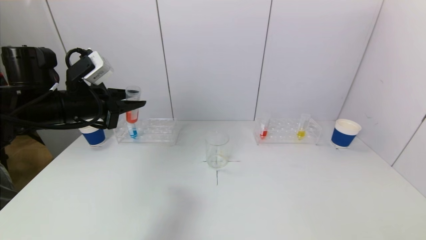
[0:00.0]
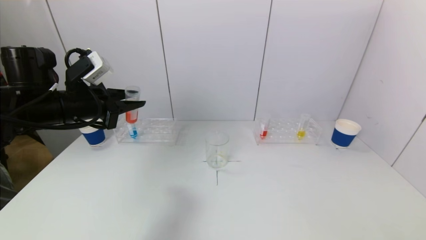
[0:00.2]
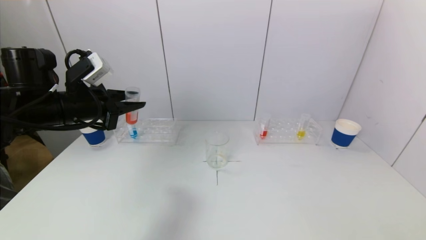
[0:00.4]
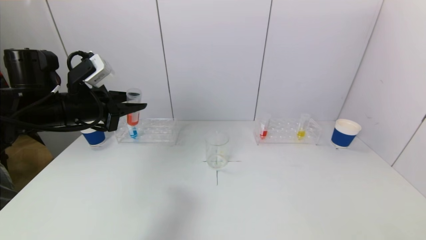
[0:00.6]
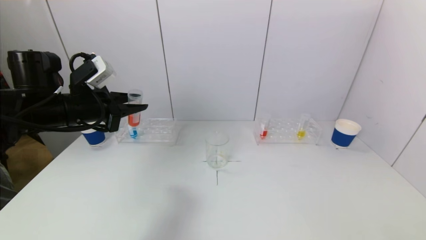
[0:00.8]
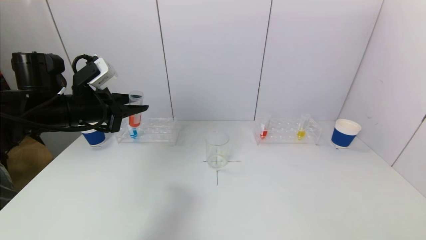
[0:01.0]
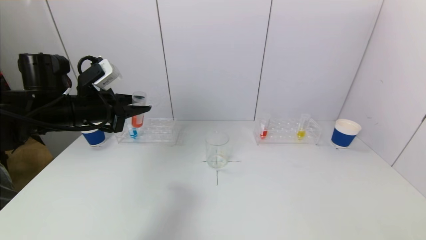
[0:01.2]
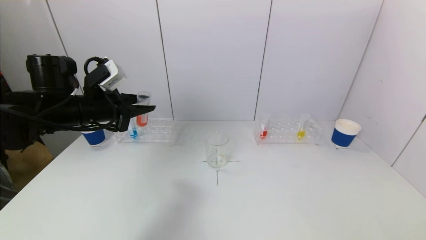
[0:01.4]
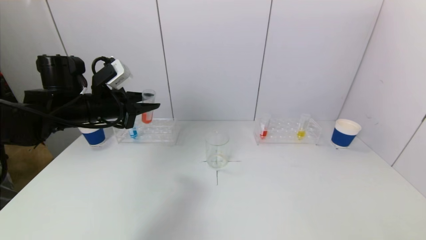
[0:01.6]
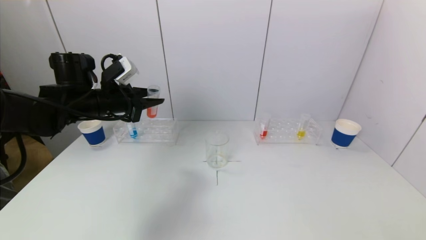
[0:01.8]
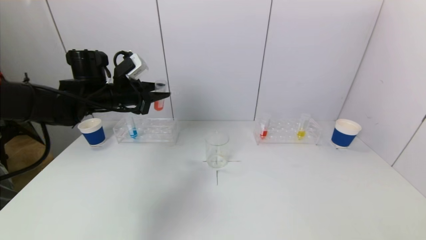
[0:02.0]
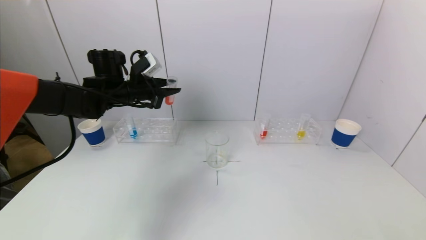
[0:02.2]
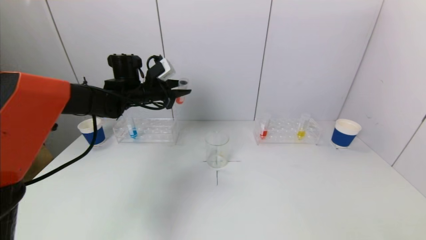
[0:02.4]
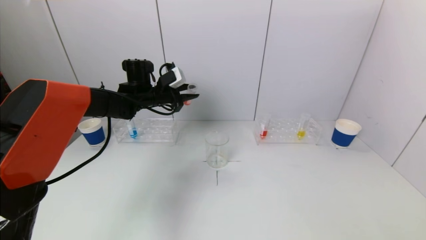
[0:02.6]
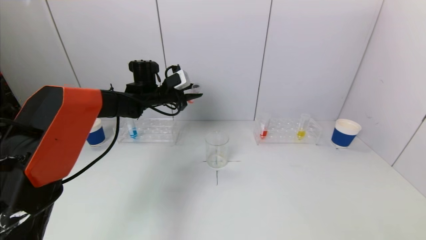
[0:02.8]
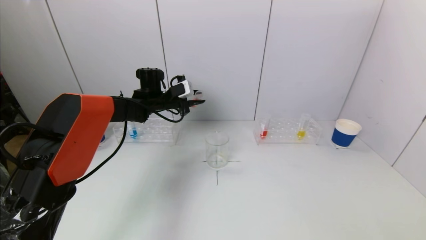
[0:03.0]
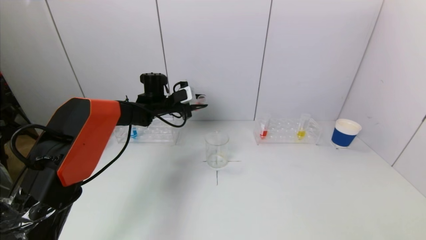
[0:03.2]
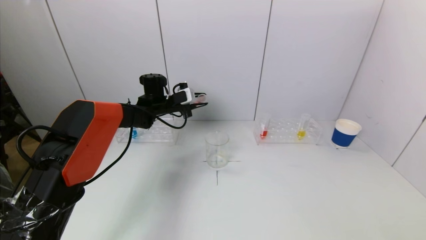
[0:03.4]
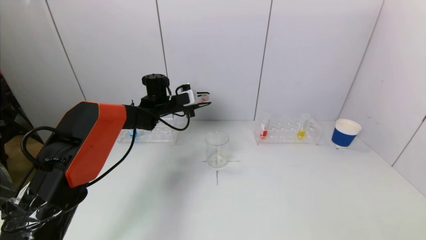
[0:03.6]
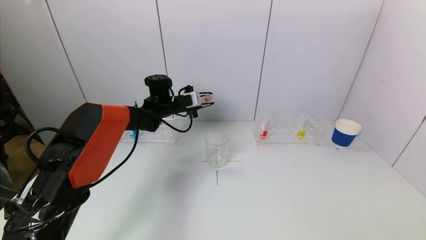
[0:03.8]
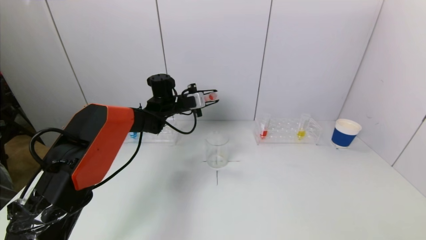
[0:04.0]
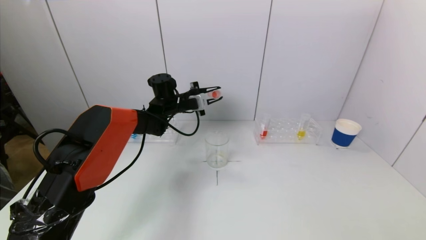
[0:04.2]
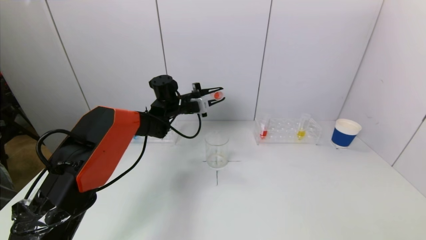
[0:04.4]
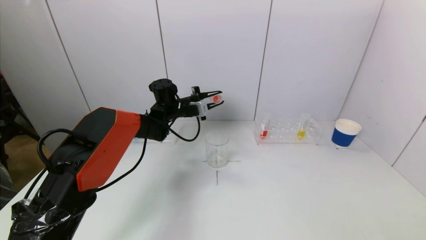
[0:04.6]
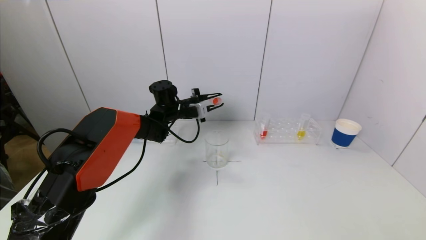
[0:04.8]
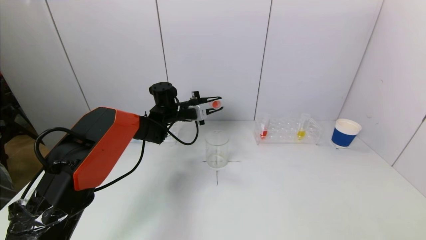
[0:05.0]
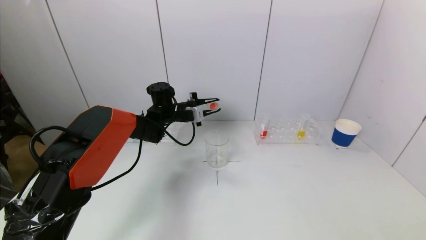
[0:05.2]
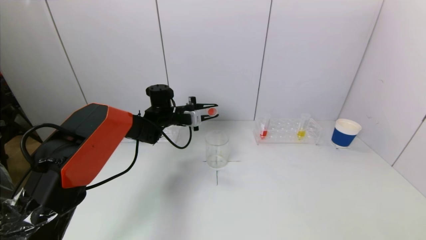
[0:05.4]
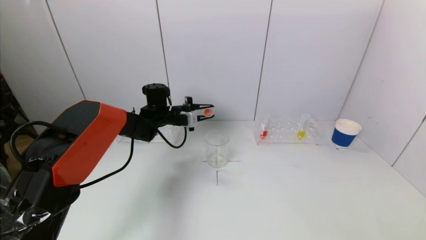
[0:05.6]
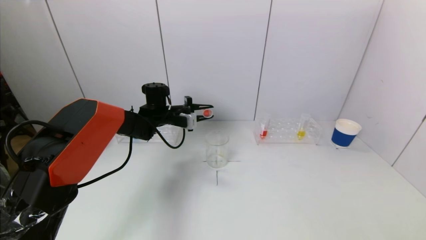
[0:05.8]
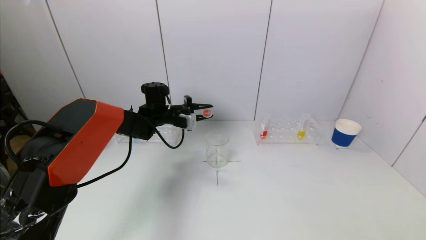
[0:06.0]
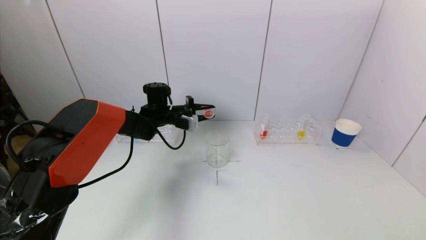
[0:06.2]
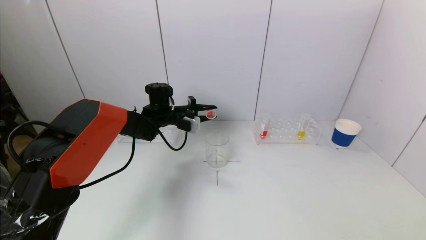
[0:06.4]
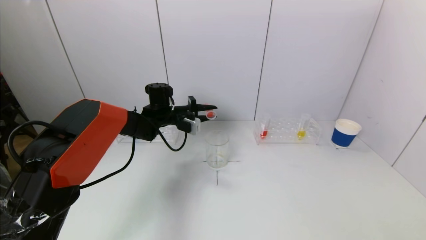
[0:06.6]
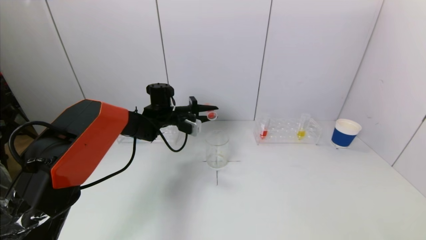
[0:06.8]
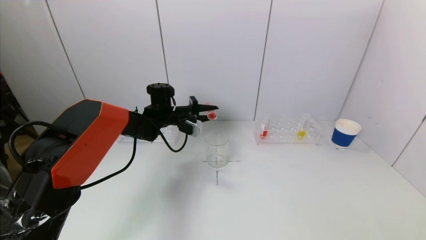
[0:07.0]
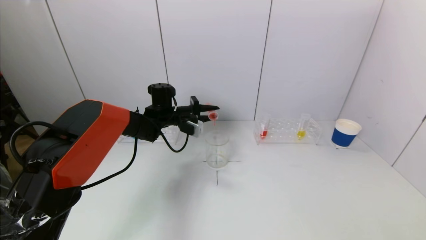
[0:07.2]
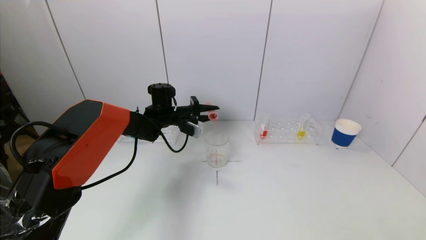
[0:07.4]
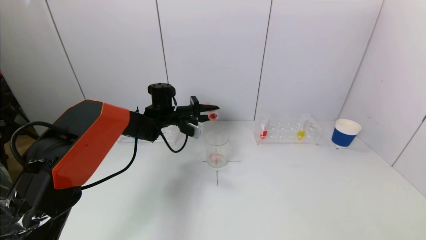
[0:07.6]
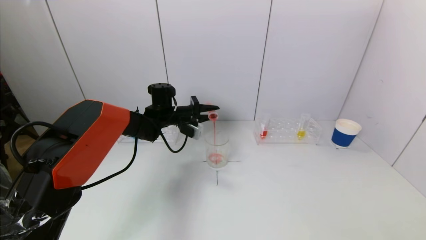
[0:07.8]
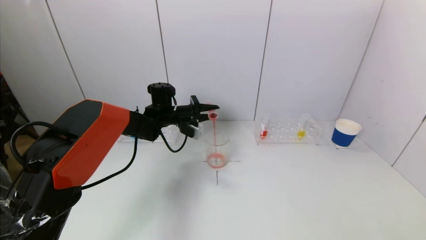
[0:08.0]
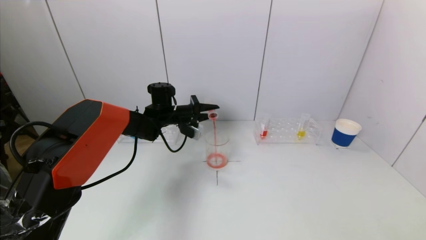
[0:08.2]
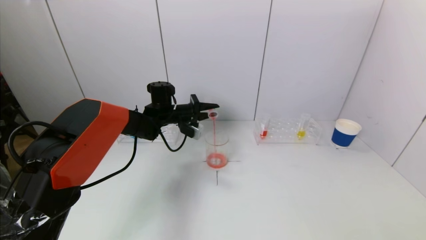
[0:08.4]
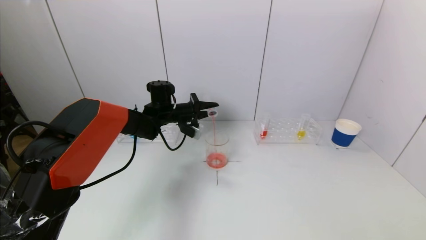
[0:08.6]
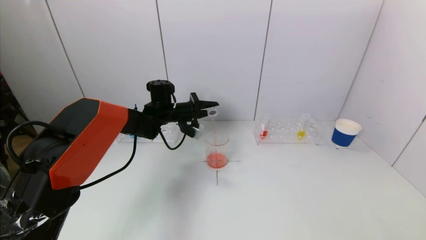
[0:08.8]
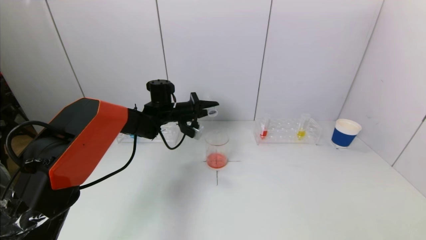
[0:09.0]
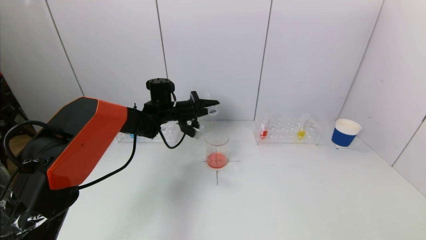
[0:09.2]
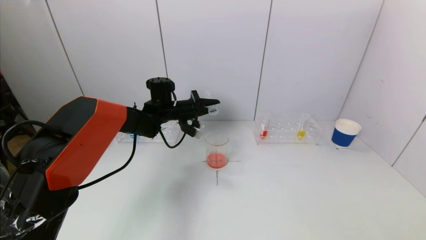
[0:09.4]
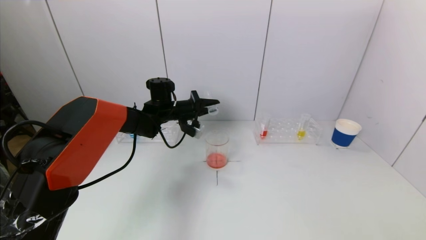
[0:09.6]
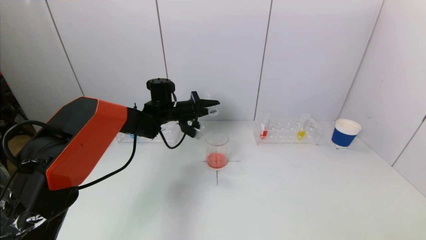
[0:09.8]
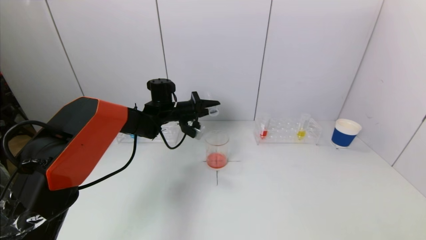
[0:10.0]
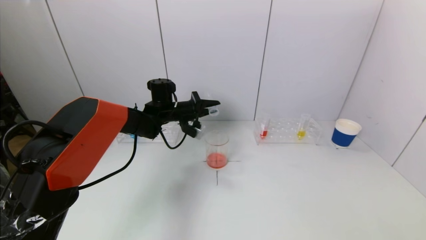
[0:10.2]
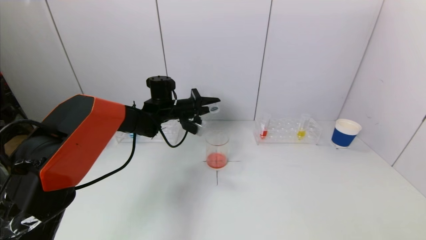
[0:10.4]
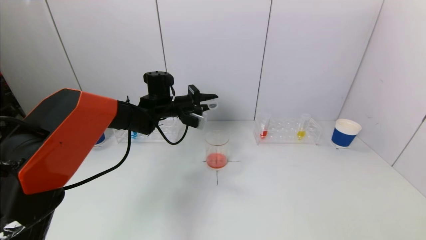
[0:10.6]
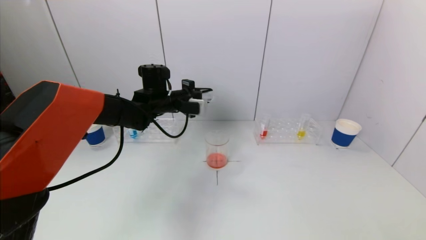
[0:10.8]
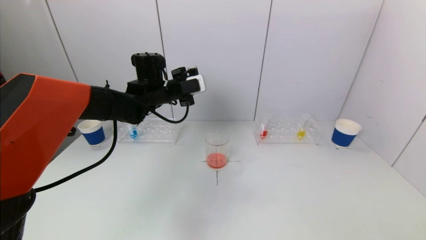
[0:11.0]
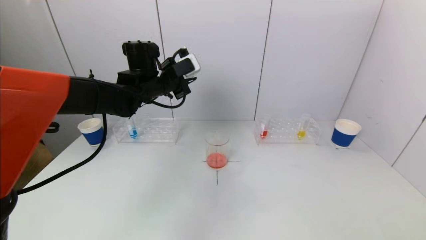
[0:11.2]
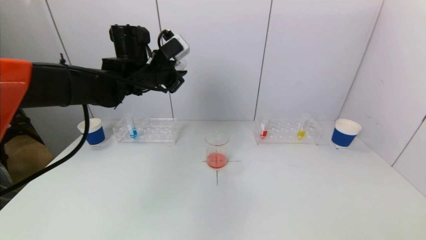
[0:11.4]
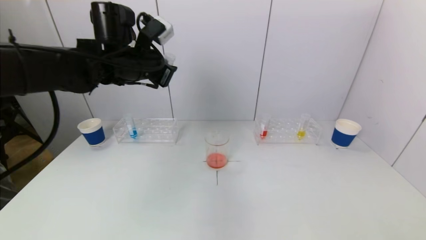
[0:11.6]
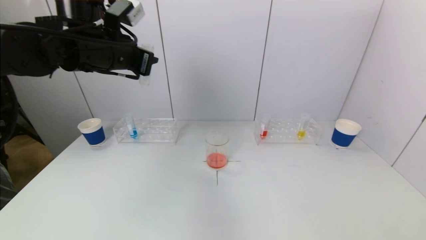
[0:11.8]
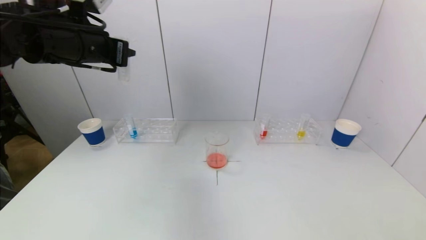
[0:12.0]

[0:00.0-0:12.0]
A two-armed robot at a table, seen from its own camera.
Task of the whole recording: pick up a test tube with pigment on left test tube rack and a test tube with pigment on right test tube rack by grippers and pour them into the beaker.
Step, 0:00.0 to 0:09.6: Pour the red reagent into the graduated cylinder with the left gripper.
0:00.0 to 0:01.6: The grippers stay close to where they were, moving slightly.
0:01.6 to 0:03.0: The left gripper heads forward and to the right, covering approximately 20 cm.
0:03.0 to 0:04.4: The left gripper moves to the right, approximately 5 cm.
0:04.4 to 0:06.0: The grippers stay close to where they were, moving slightly.
0:06.0 to 0:07.6: The grippers move only a little.
0:07.6 to 0:10.4: There are only small adjustments of the grippers.
0:10.4 to 0:12.0: The left gripper travels upward, backward and to the left by about 25 cm.

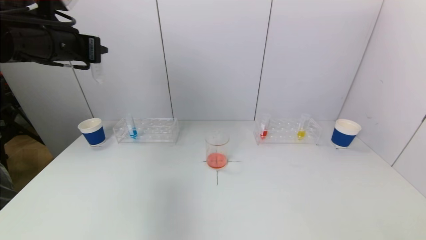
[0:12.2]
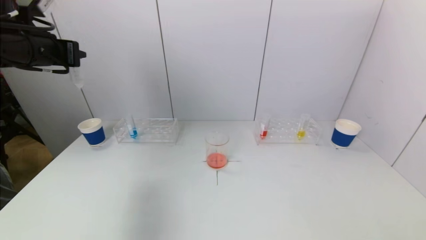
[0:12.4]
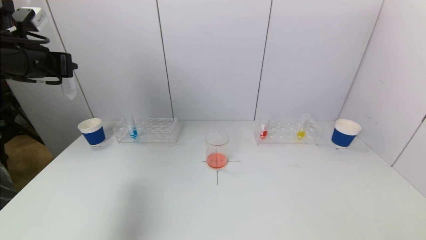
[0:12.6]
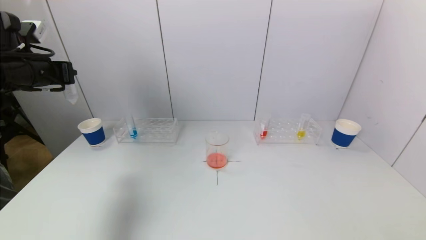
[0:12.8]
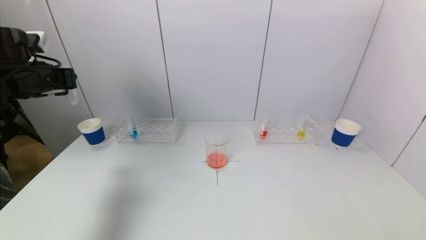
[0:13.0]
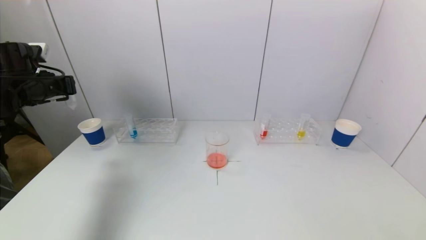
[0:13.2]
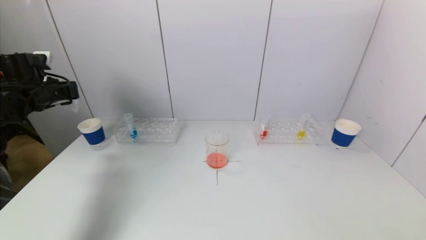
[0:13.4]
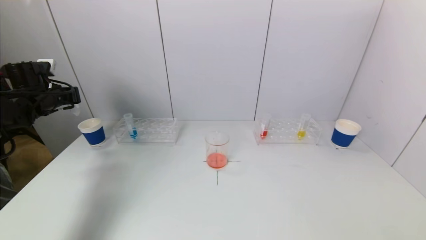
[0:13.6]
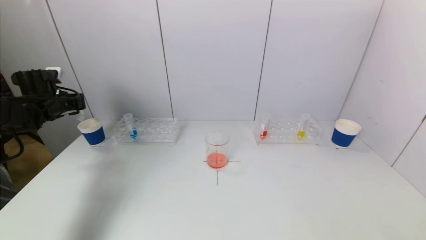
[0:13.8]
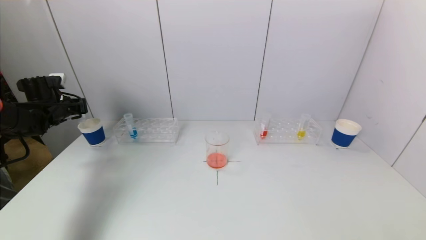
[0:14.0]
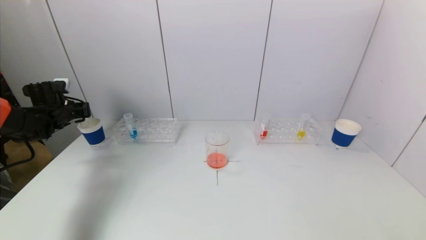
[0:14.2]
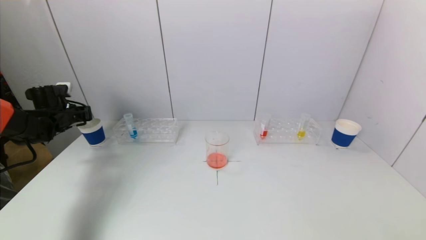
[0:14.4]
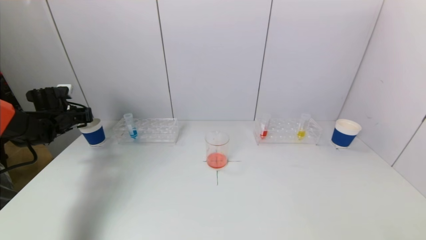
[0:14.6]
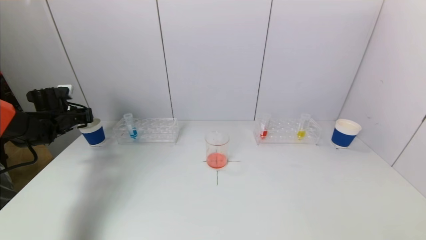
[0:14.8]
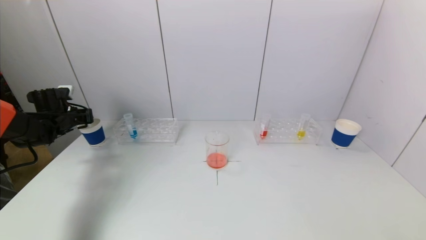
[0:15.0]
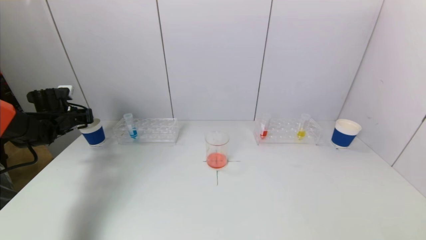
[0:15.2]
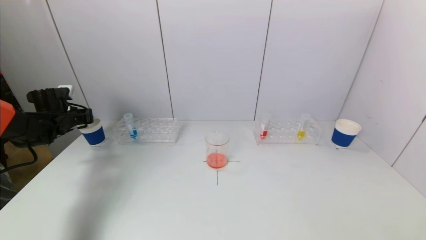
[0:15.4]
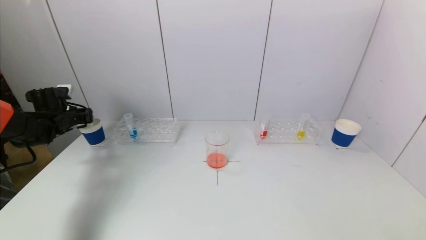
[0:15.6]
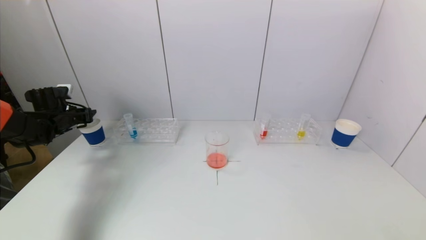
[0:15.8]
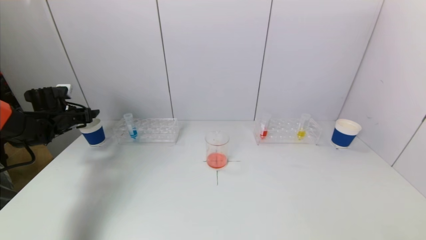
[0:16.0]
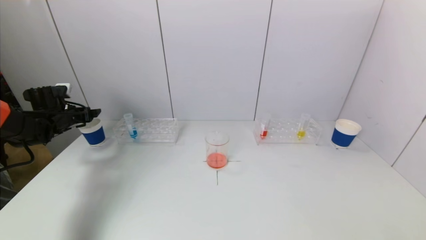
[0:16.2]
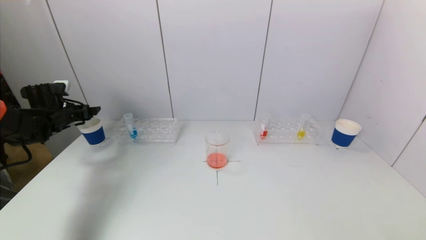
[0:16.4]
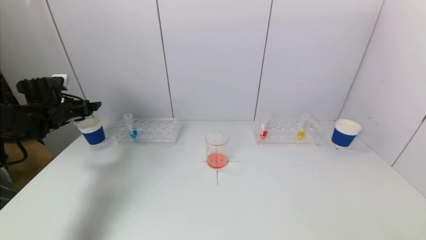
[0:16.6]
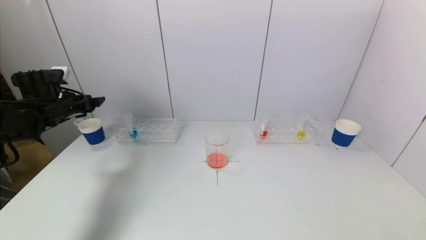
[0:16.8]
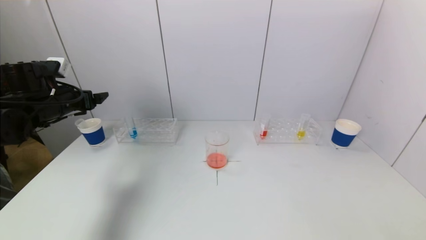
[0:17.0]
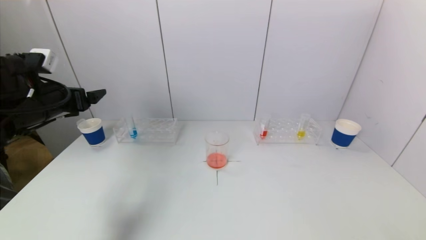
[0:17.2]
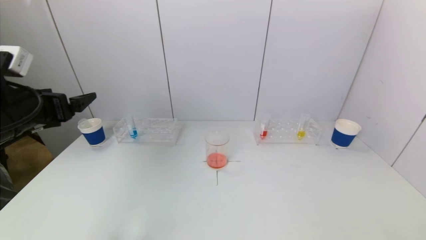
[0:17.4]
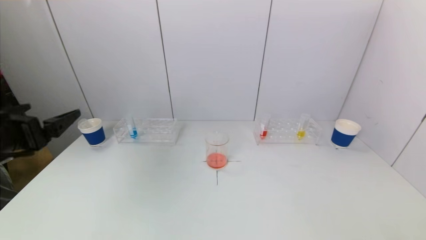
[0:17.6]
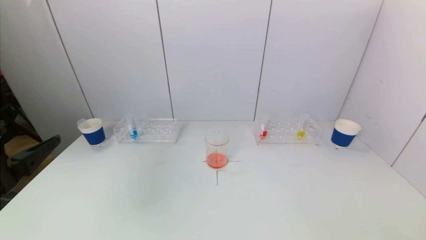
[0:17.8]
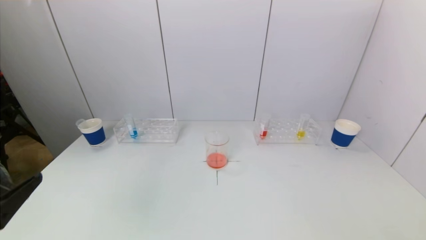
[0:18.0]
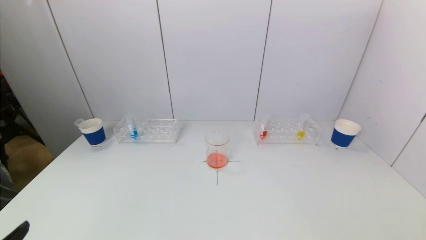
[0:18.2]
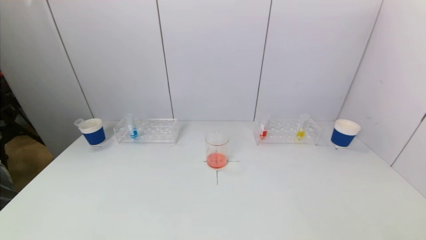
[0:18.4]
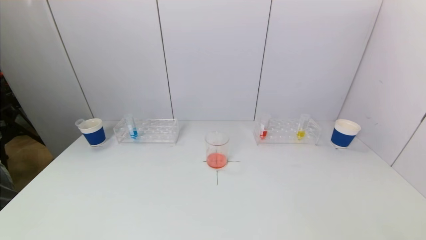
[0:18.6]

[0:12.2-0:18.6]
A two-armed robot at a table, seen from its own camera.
Task of the whole recording: pick up a test tube with pigment on left test tube rack and a test tube with pigment on right test tube rack by grippers and pour them into the beaker.
Step, 0:12.2 to 0:16.2: Place the test tube into the paper cup with the left gripper.
0:12.2 to 0:13.8: The left gripper travels downward, to the left and forward by about 25 cm.
0:13.8 to 0:15.4: The left gripper travels downward by approximately 5 cm.
0:15.4 to 0:17.0: The left gripper heads upward, backward and to the right, covering approximately 15 cm, and opens.
0:17.0 to 0:18.6: The left gripper shifts some 40 cm backward.
